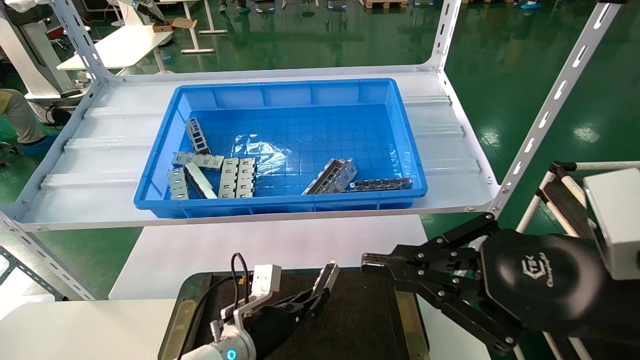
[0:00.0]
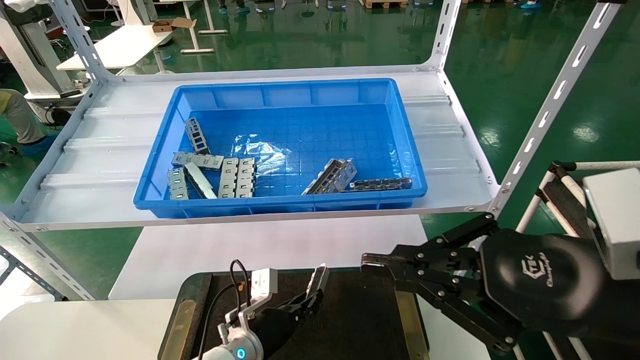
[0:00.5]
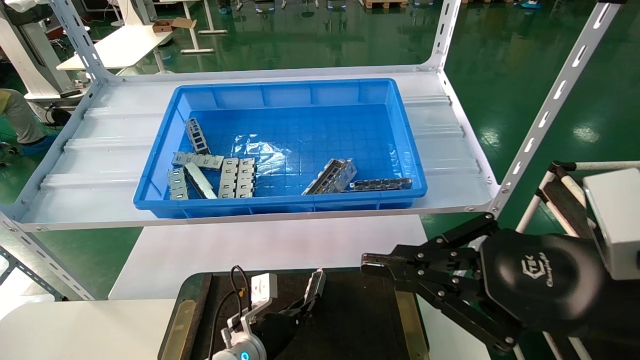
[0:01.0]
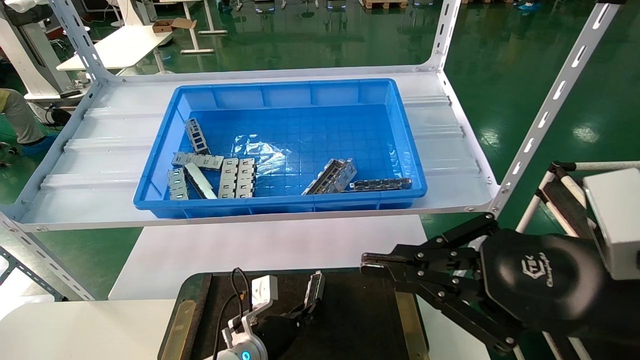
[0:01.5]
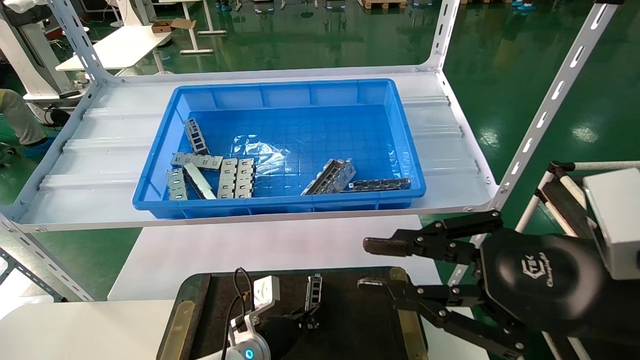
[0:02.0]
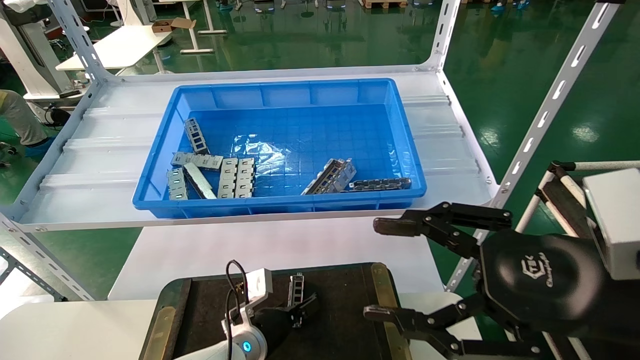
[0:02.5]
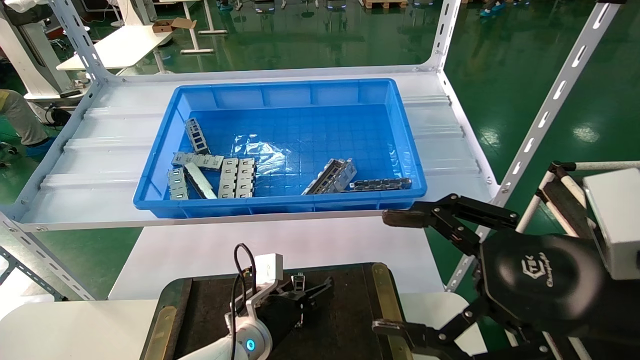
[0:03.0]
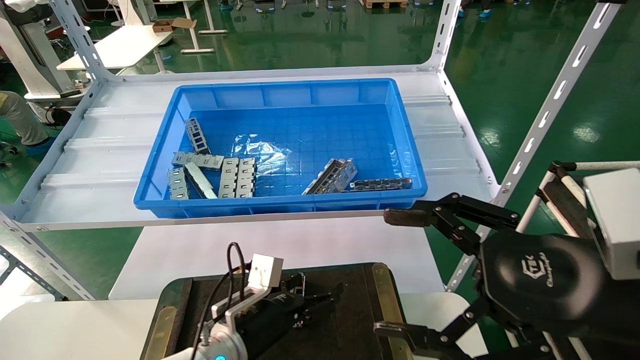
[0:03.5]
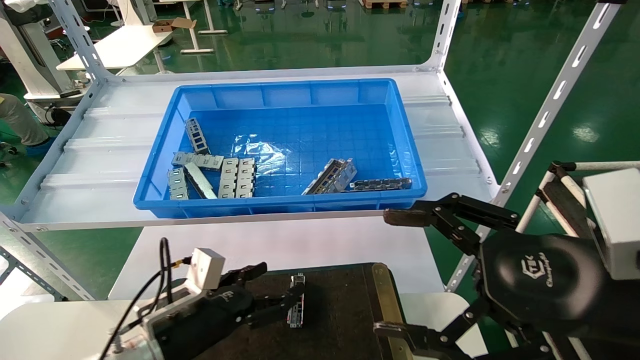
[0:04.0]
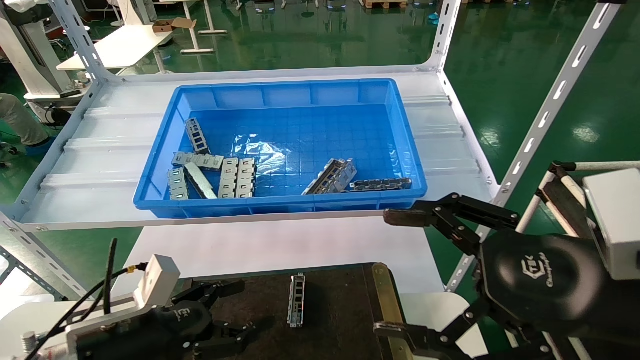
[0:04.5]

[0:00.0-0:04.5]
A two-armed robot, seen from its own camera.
Task of the whole recording: Grasp the part with one hand and place it on the black container.
Step, 0:00.0 to 0:02.0: Place the front USB bracket into the box.
0:00.0 to 0:02.0: There are only small adjustments of the grippers.
0:02.0 to 0:04.5: The right gripper opens up; the left gripper shifts approximately 25 cm to the left, upward and backward, and opens its fingers.

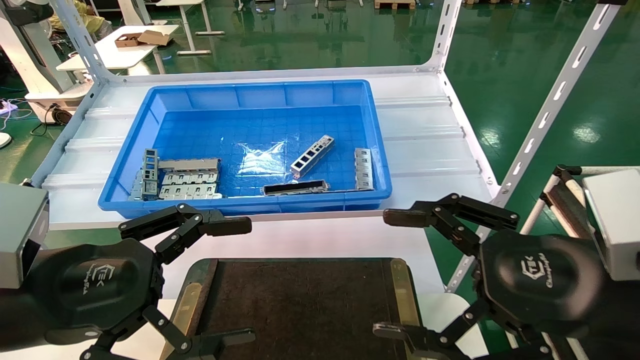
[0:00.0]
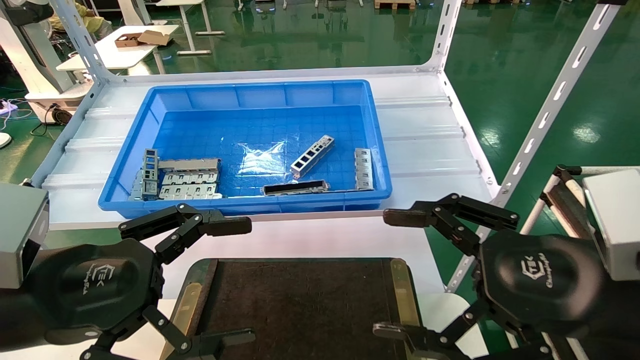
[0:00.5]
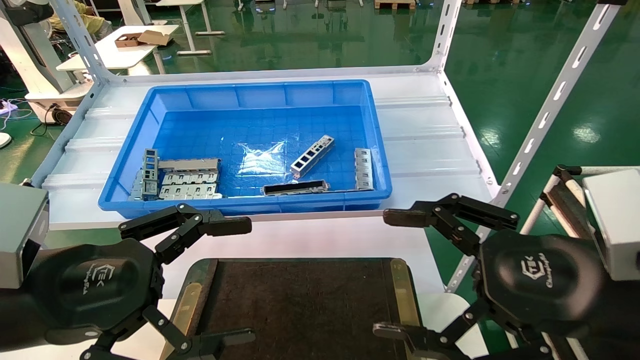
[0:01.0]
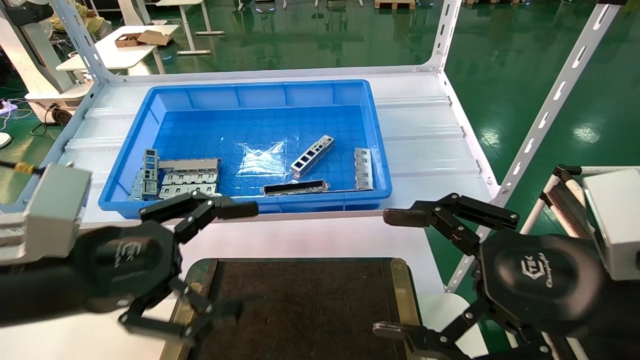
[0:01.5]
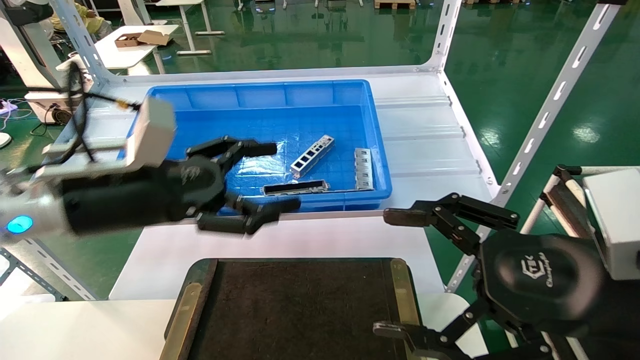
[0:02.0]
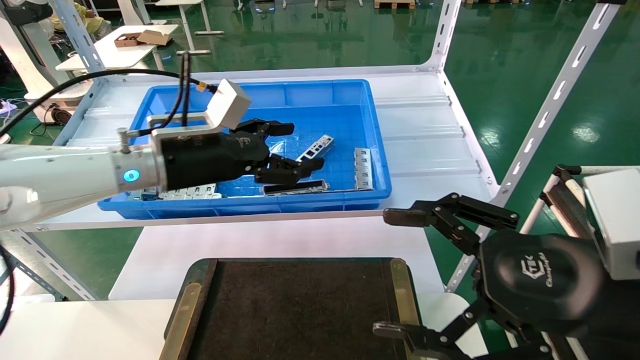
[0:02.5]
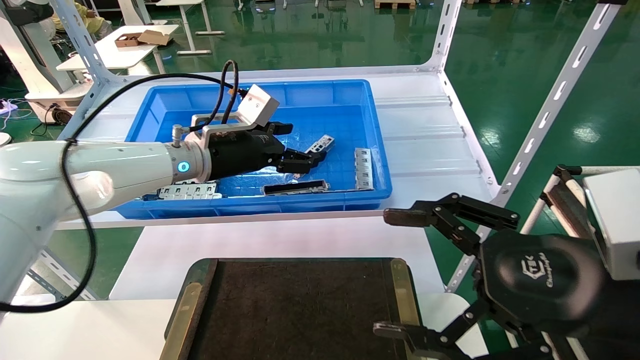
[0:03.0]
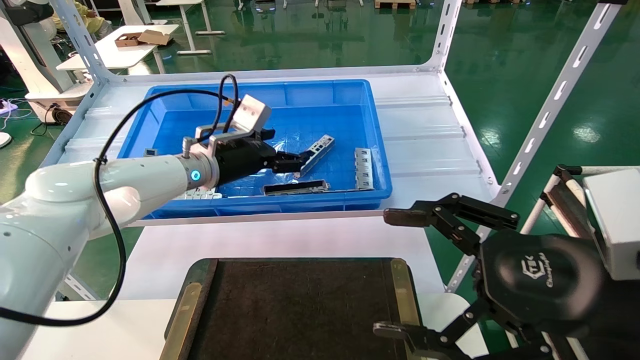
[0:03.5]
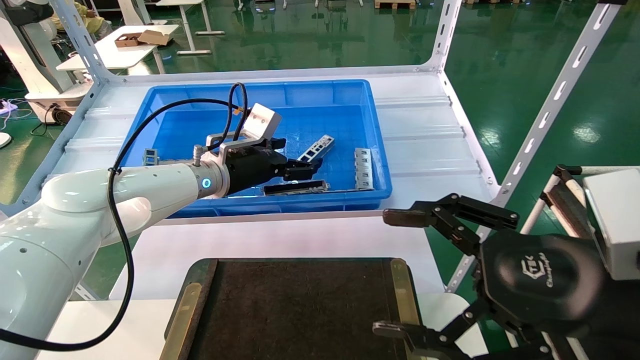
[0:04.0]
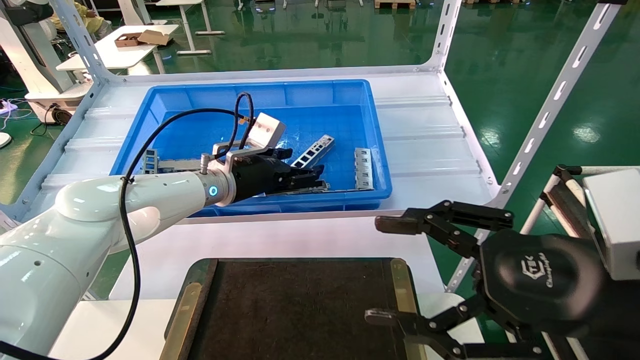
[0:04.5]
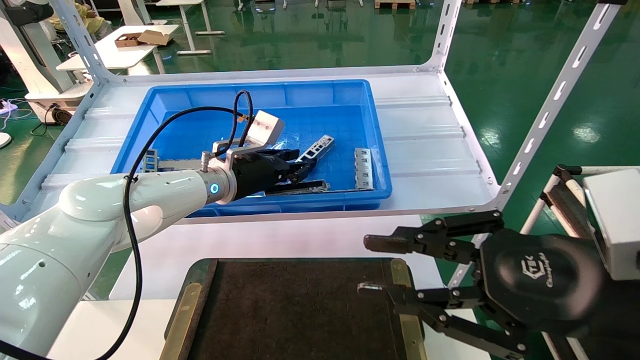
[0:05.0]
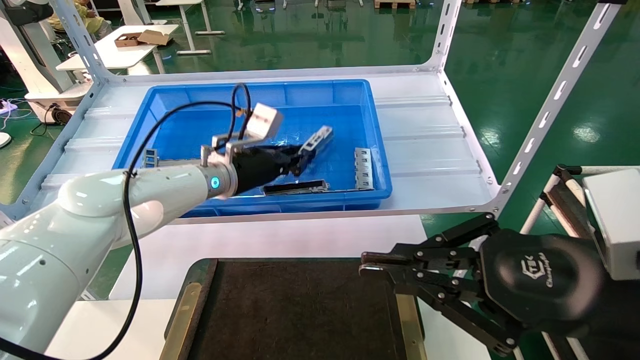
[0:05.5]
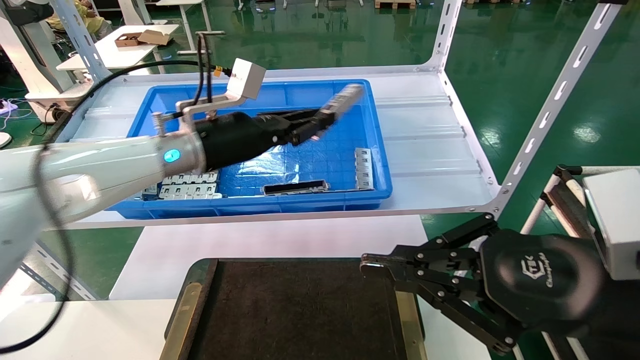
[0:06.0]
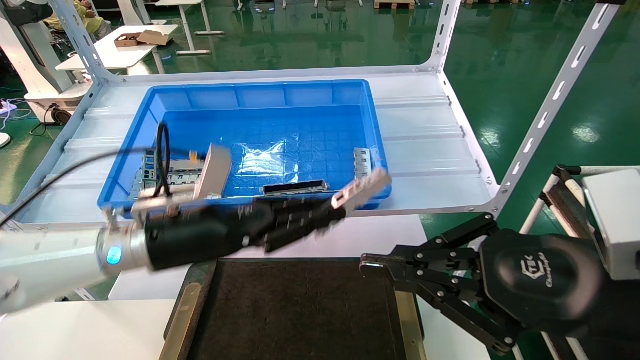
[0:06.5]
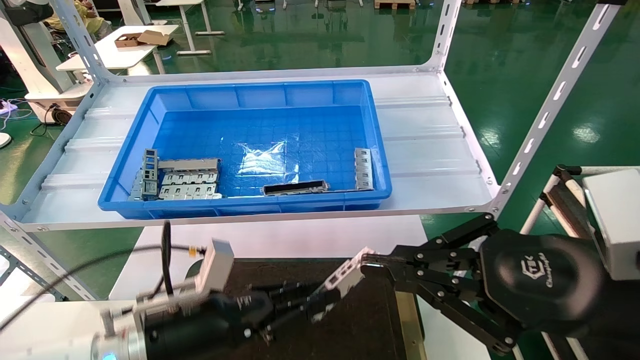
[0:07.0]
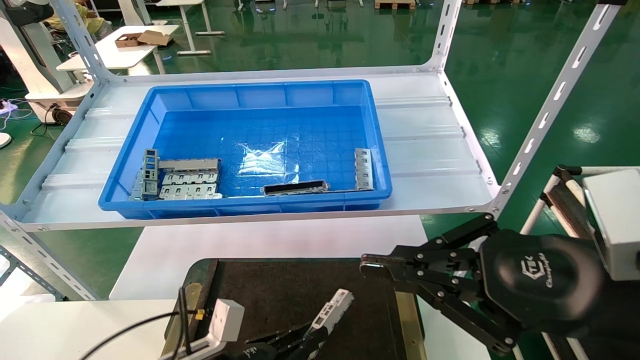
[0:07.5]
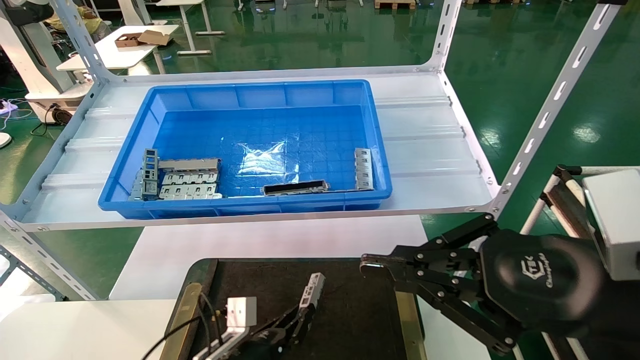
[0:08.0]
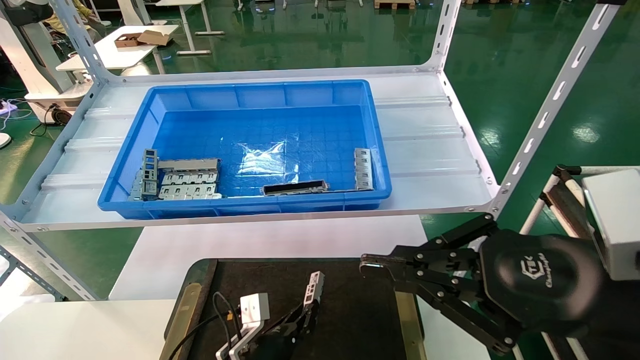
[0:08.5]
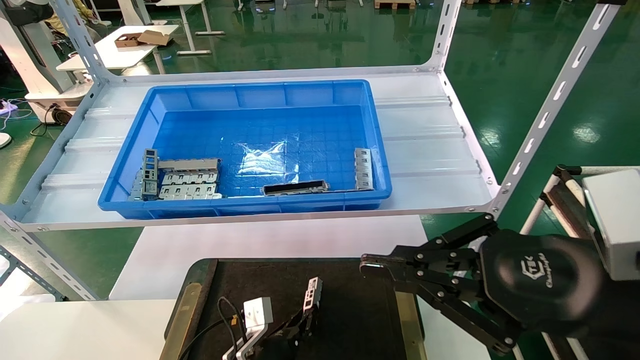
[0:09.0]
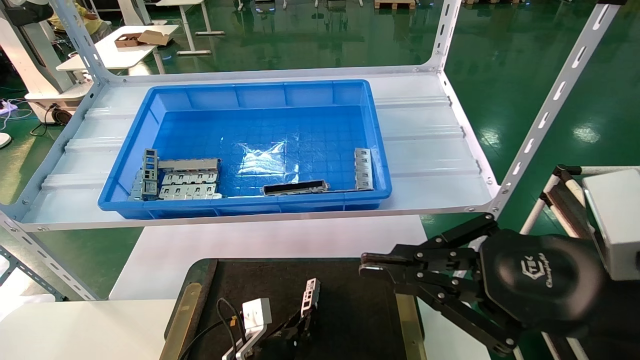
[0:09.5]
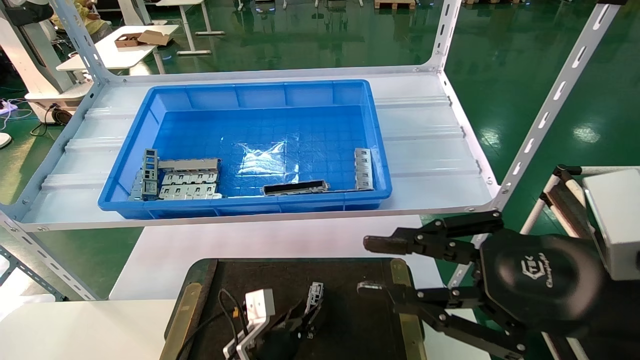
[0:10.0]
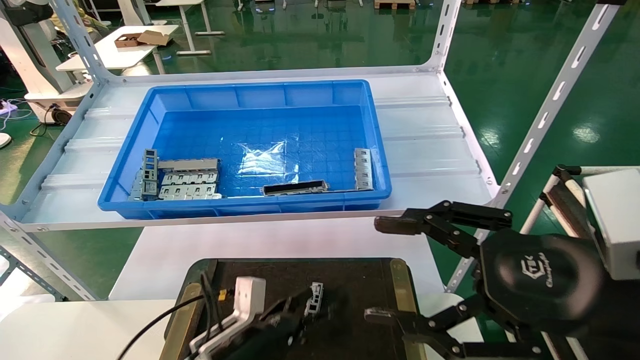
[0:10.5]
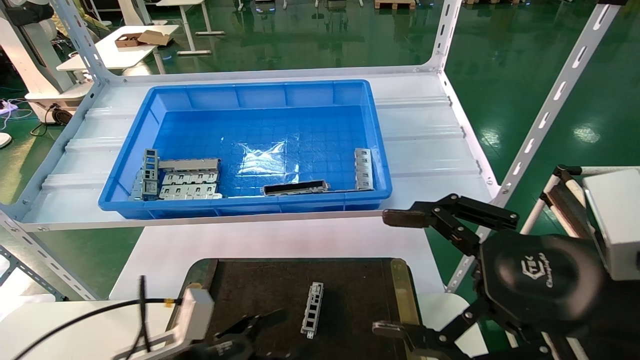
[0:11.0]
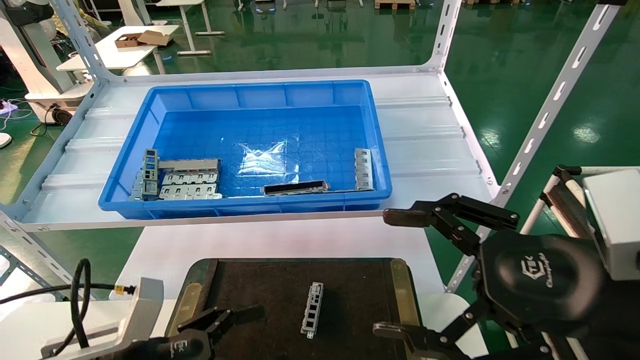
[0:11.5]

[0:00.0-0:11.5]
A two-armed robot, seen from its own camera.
Task of the whole recording: Grasp the part with one hand and place it on the black container.
Step, 0:02.0 to 0:05.0: Pick up the front USB bracket from the feeding area.
Step, 0:05.5 to 0:09.5: Place the front USB bracket into the box.
0:00.0 to 0:02.0: The left gripper moves forward, about 10 cm.
0:02.0 to 0:04.0: The left gripper travels forward and to the right by roughly 20 cm.
0:04.0 to 0:06.0: The right gripper closes; the left gripper moves backward, some 5 cm, and closes up.
0:06.0 to 0:07.5: The left gripper heads downward and backward, covering roughly 30 cm.
0:07.5 to 0:09.5: The left gripper shifts roughly 15 cm downward, forward and to the right.
0:09.5 to 0:11.5: The left gripper goes roughly 25 cm upward, to the left and backward, and opens up. The right gripper opens its fingers.

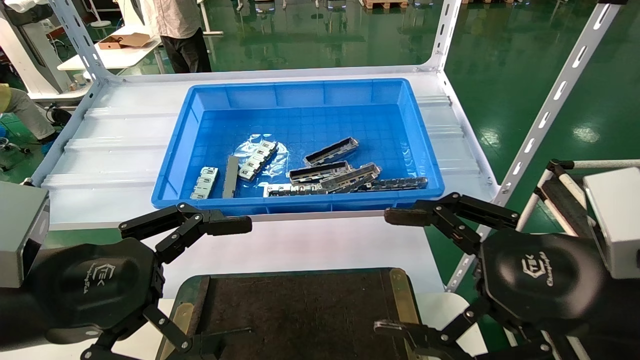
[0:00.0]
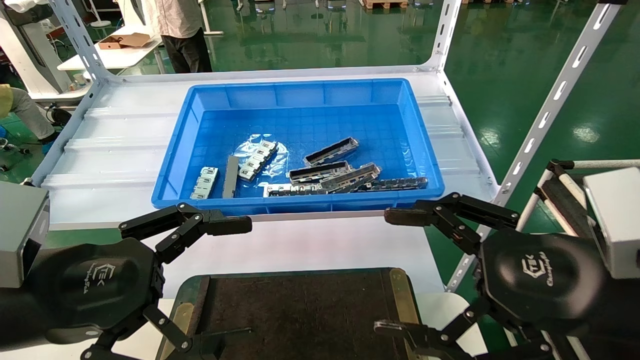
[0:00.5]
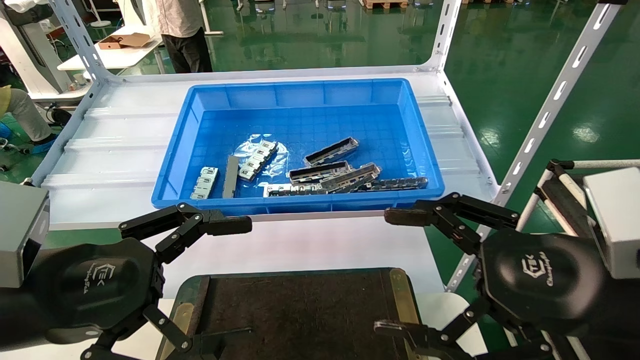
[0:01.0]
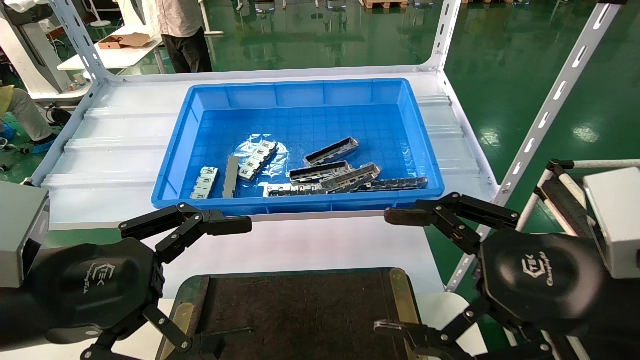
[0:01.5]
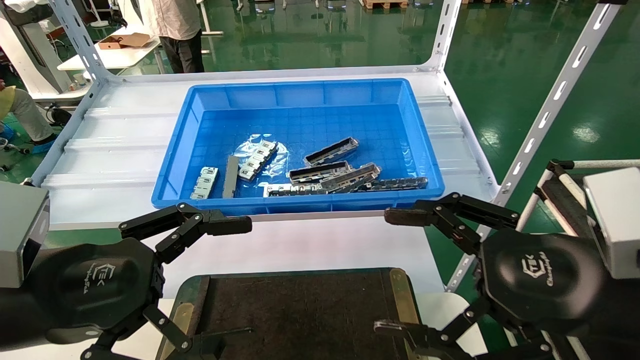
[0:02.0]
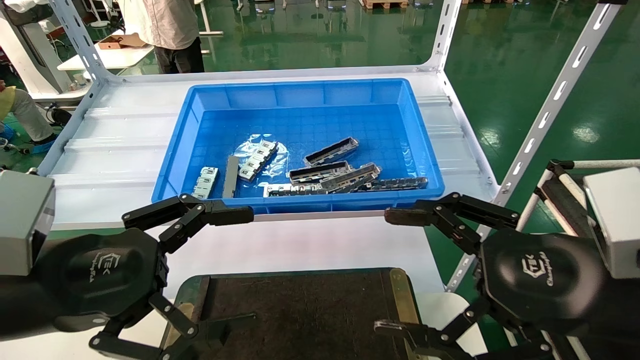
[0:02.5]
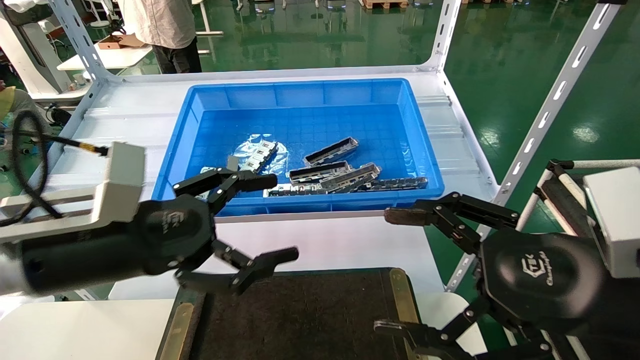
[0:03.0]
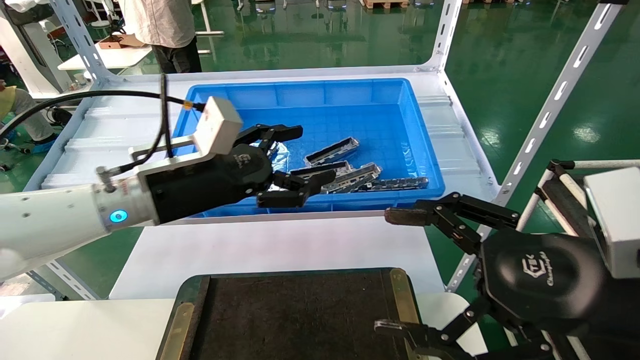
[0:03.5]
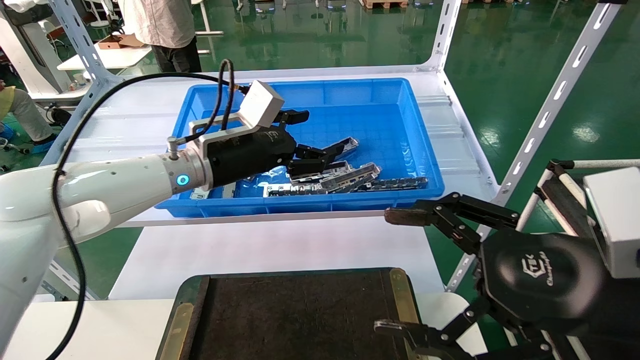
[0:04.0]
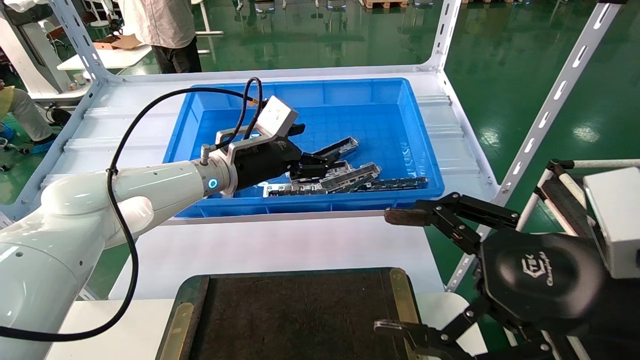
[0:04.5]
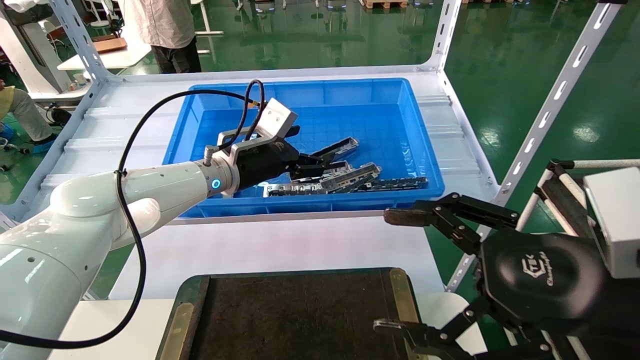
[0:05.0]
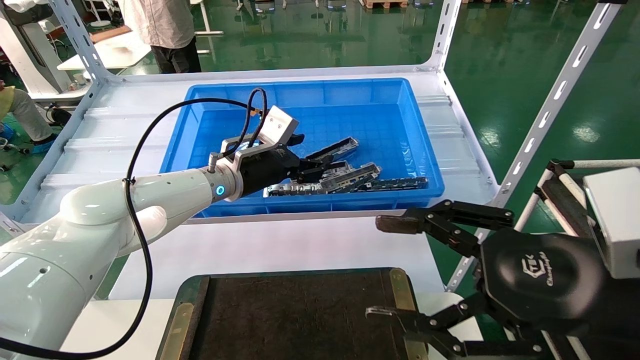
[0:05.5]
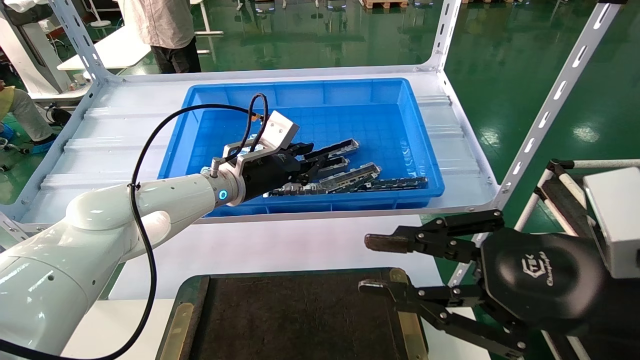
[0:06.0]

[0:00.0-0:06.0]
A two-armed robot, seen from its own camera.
Task of the whole recording: Grasp the part with one hand and place it on the black container.
0:00.0 to 0:02.0: Both grippers stay about where they are.
0:02.0 to 0:04.0: The left gripper travels forward and to the right by some 25 cm.
0:04.0 to 0:06.0: The right gripper closes its fingers; the left gripper goes about 5 cm forward, and closes its fingers.
